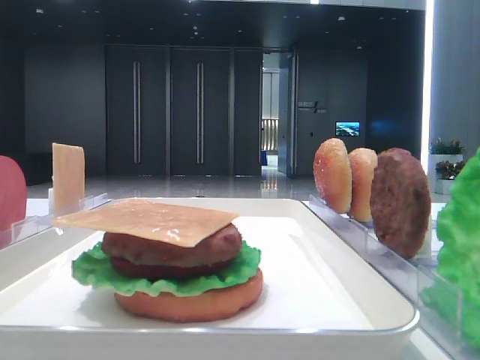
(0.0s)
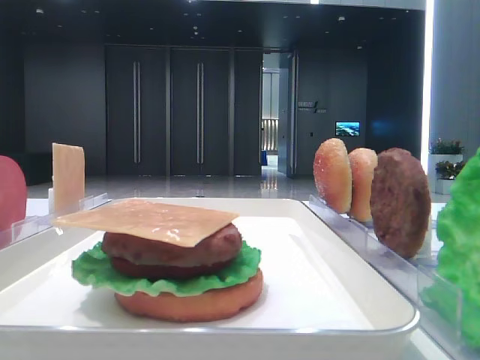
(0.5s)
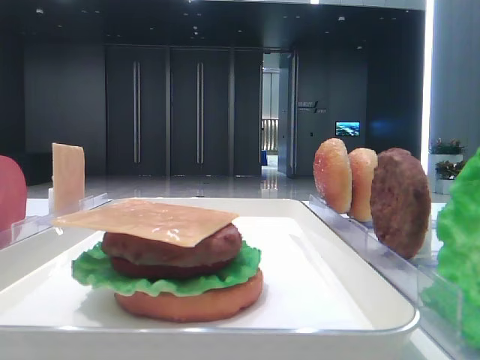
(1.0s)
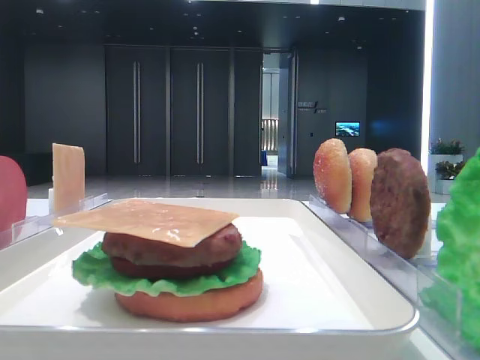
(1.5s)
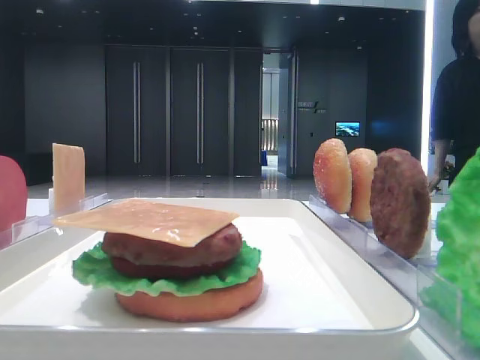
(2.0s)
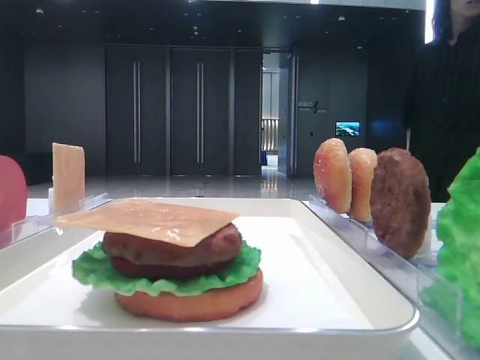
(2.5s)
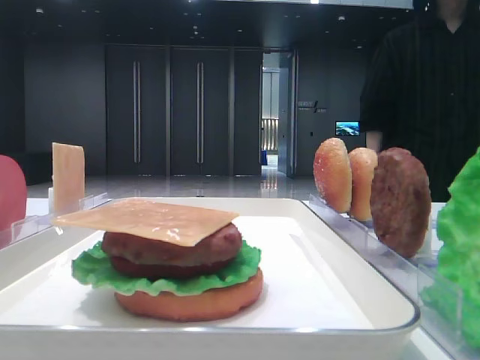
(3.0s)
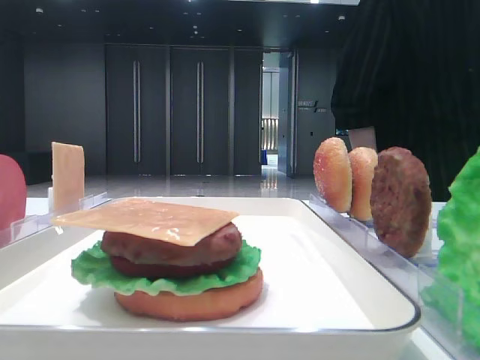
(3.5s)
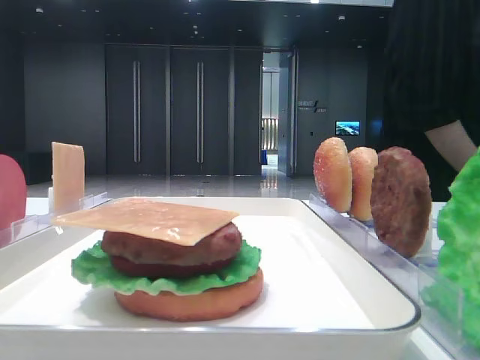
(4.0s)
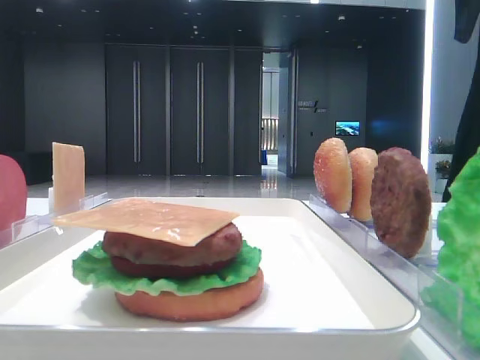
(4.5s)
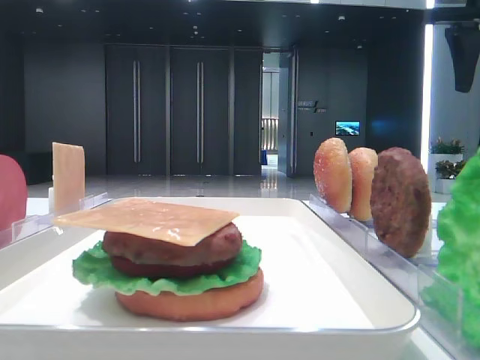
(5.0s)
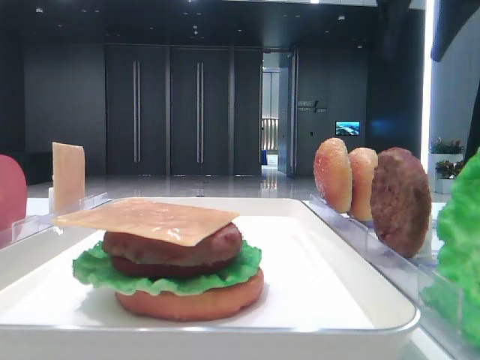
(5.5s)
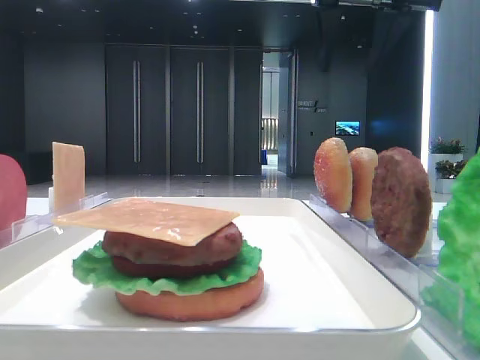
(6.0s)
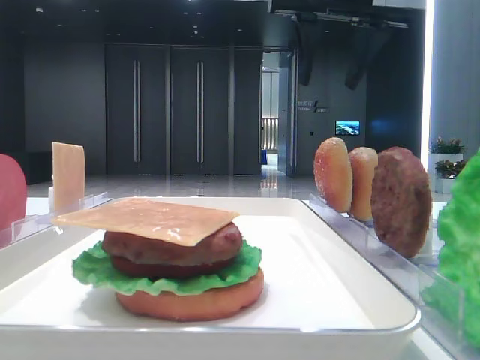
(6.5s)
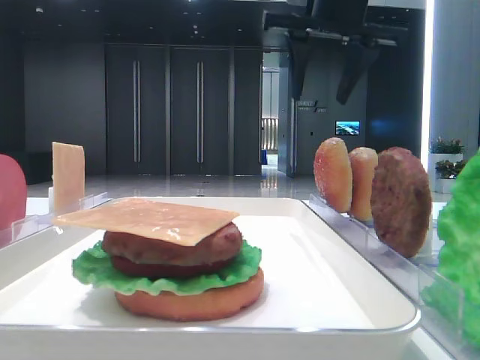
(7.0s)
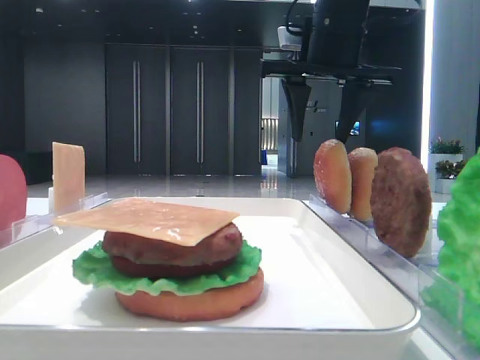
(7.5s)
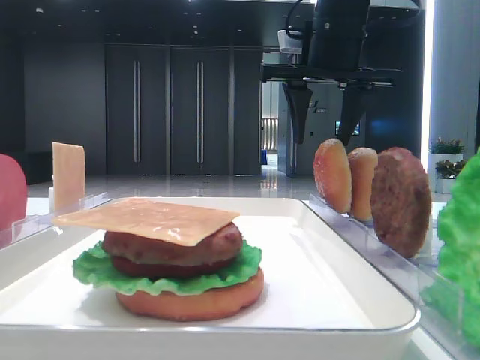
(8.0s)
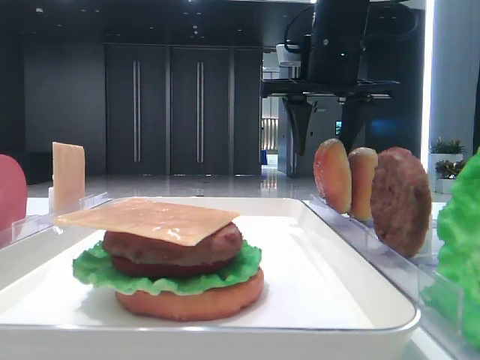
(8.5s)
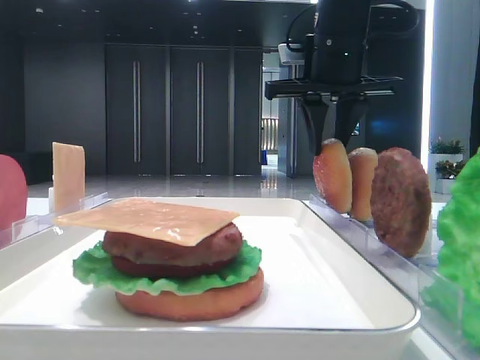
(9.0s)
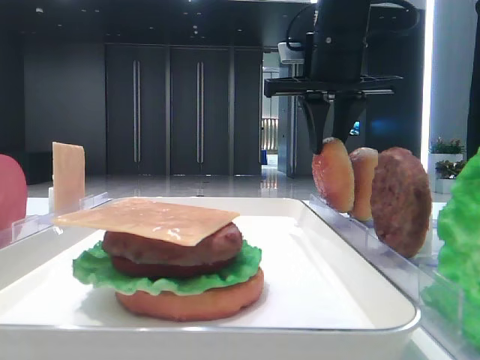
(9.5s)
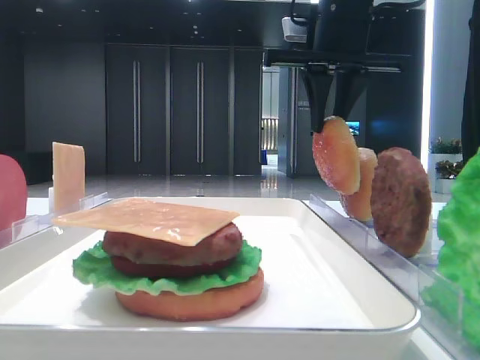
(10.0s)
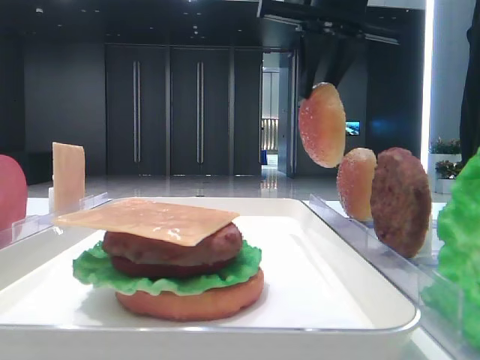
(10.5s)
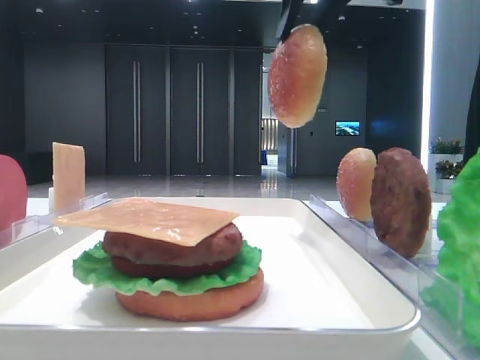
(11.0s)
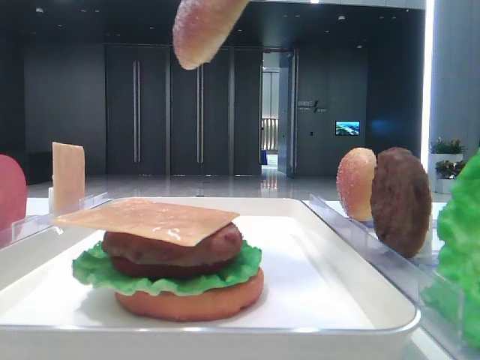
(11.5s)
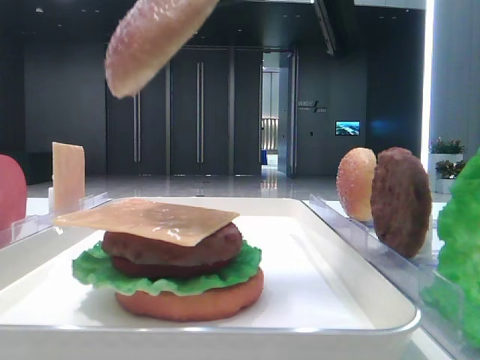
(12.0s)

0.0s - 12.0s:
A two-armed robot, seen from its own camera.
Step, 0.0s - 9.5s: Pick up the top bread slice with the right hand.
2.0s - 4.0s: The right gripper goes some 30 cm forward.
4.0s - 6.0s: The right gripper heads to the left, covering approximately 15 cm.
6.0s - 8.0s: The right gripper is displaced downward by some 10 cm.
8.0s - 10.0s: The right gripper closes up.
10.0s - 12.0s: The right gripper shifts about 15 cm backward.

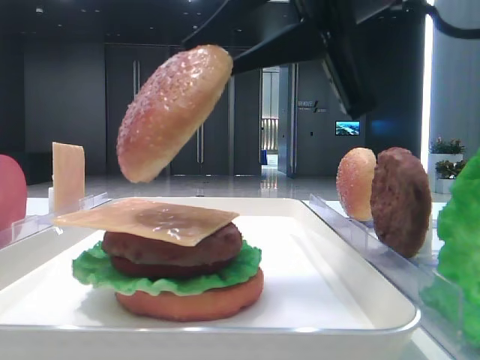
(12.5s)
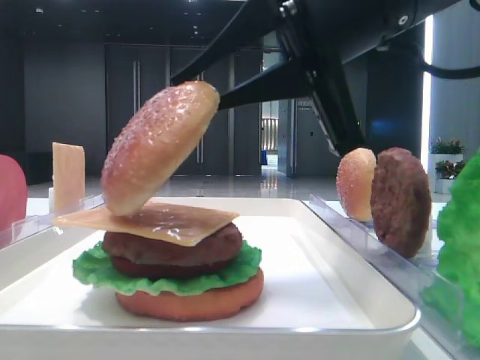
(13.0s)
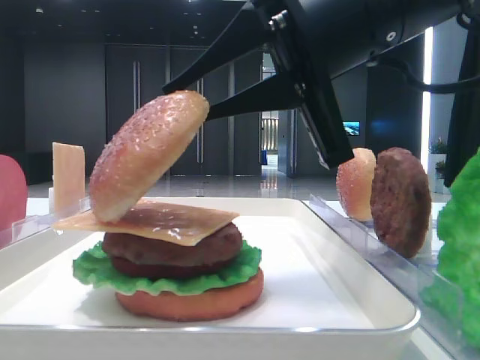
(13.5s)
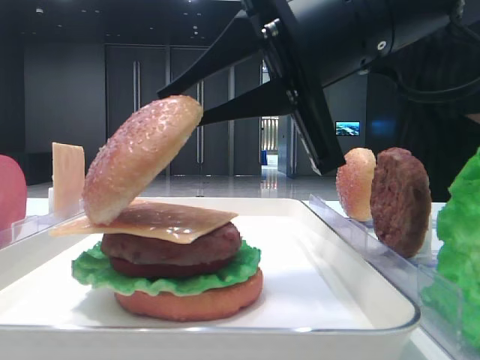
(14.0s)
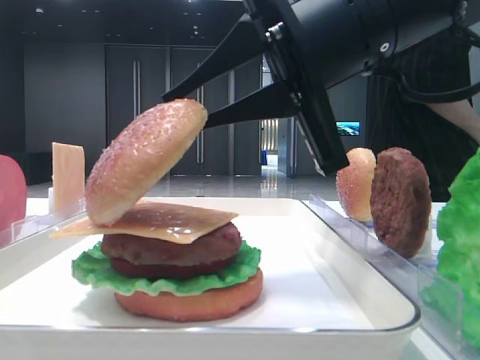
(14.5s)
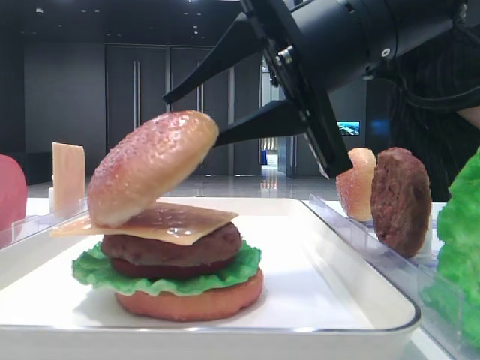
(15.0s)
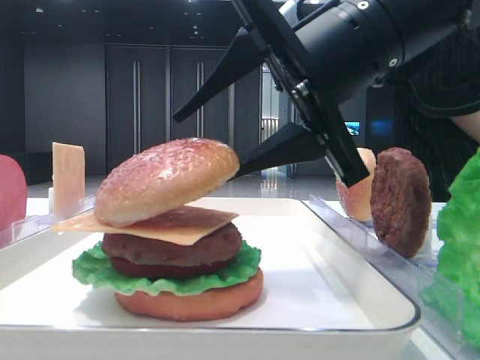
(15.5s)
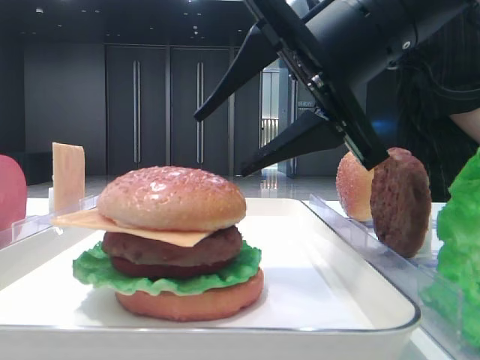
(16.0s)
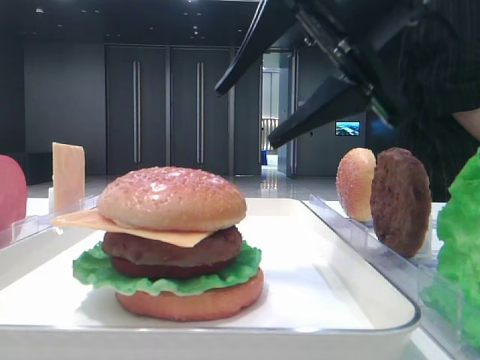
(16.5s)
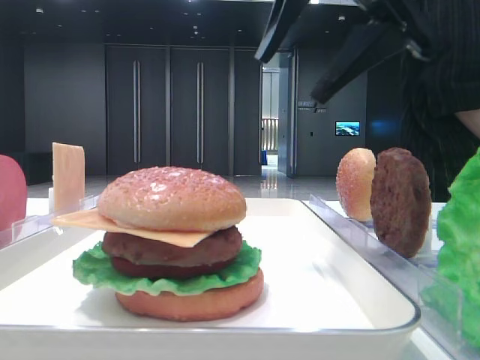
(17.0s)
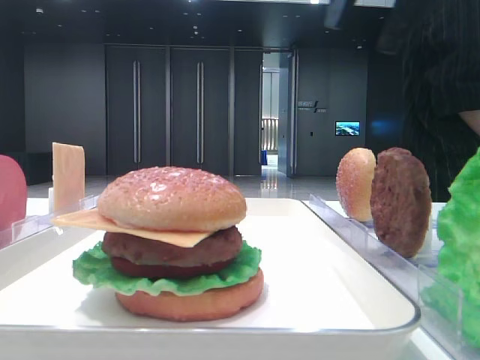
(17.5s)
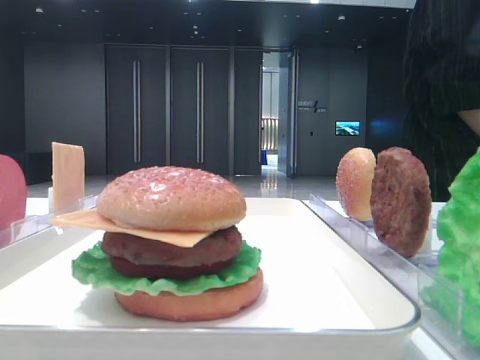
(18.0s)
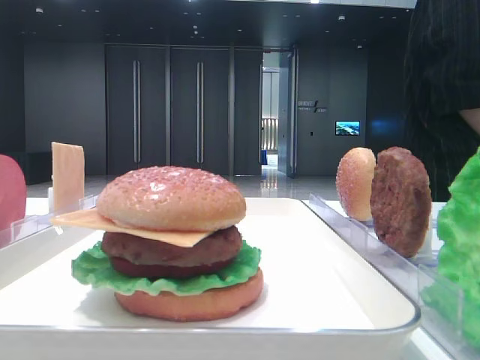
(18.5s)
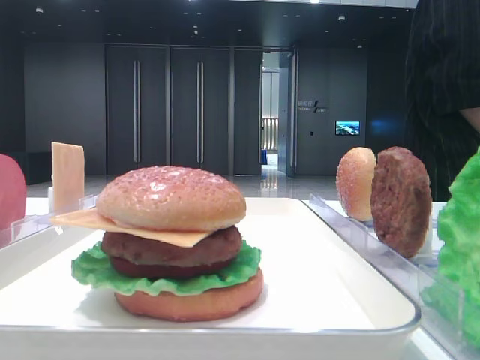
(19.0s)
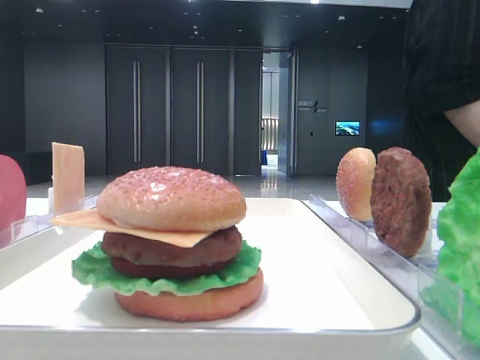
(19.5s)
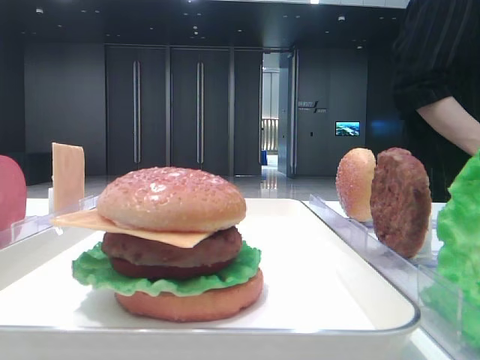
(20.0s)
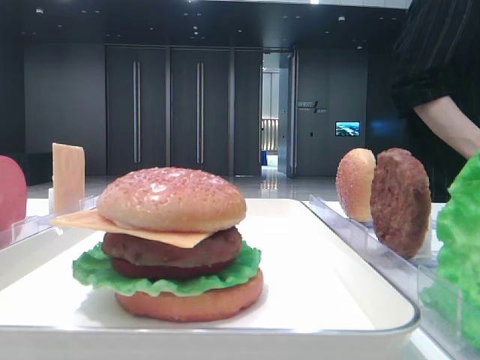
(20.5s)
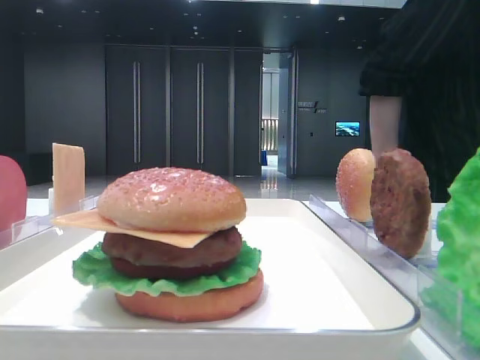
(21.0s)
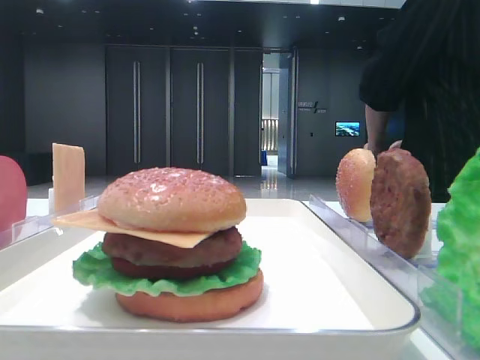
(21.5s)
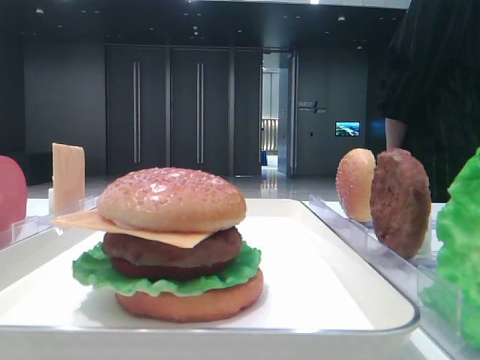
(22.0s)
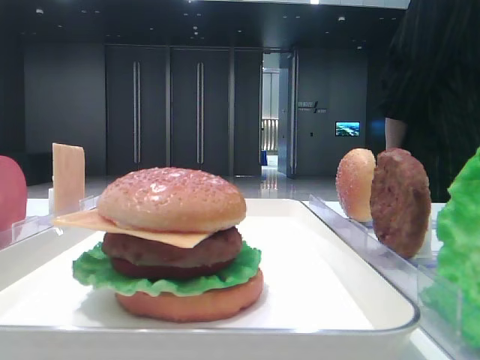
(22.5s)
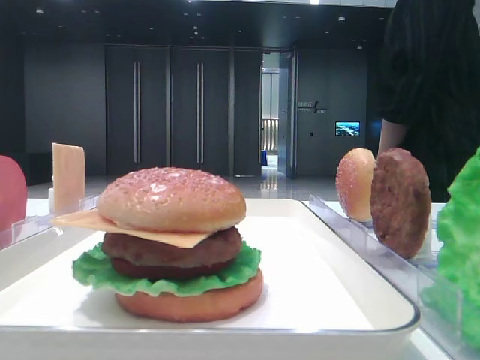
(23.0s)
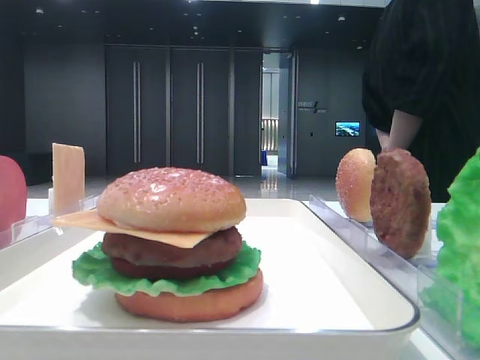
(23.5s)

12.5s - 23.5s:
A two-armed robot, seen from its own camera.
Step, 12.5s - 16.0s: Place the top bread slice on the cheese with the right hand.
14.5s - 16.0s: The right gripper opens up.
16.0s - 18.0s: The right gripper moves to the right and upward, some 20 cm.
18.0s - 20.0s: The right gripper is displaced backward by about 25 cm.
20.0s - 21.5s: The right gripper moves backward and downward, approximately 10 cm.

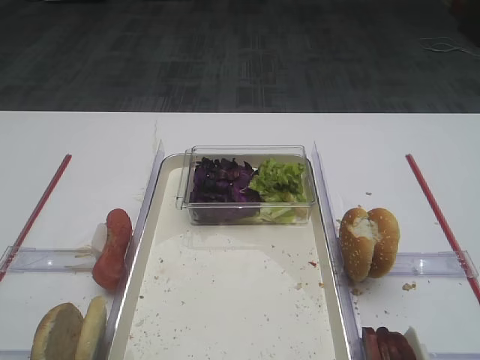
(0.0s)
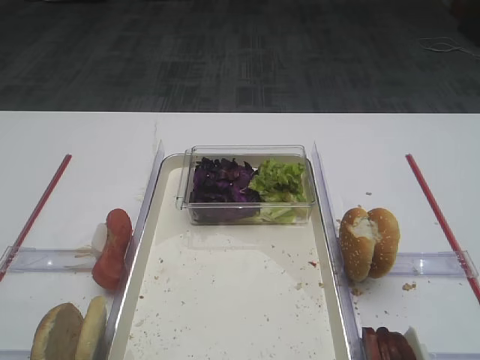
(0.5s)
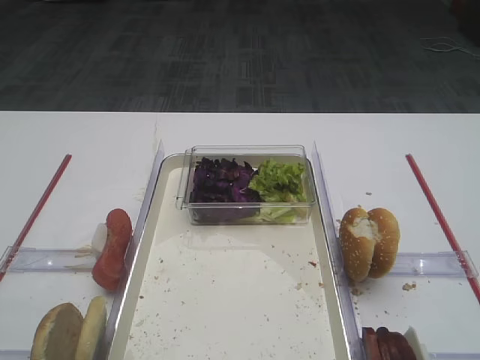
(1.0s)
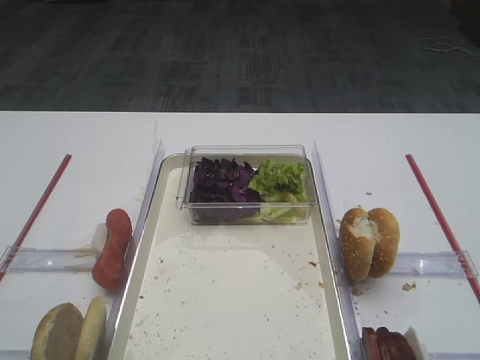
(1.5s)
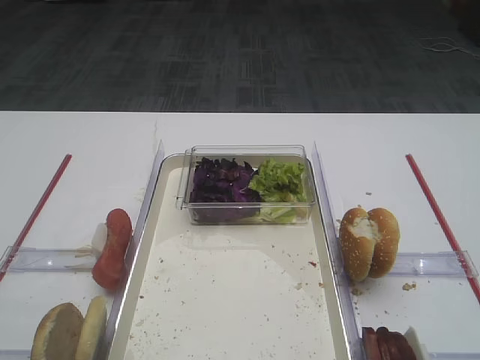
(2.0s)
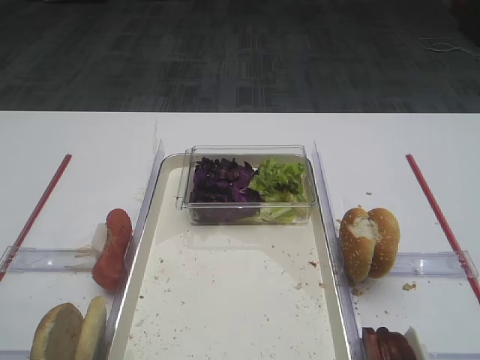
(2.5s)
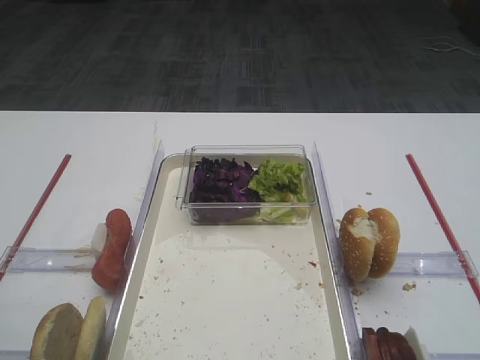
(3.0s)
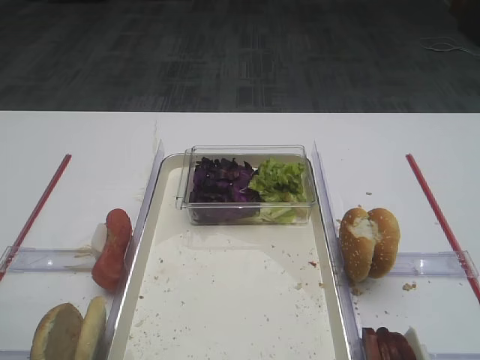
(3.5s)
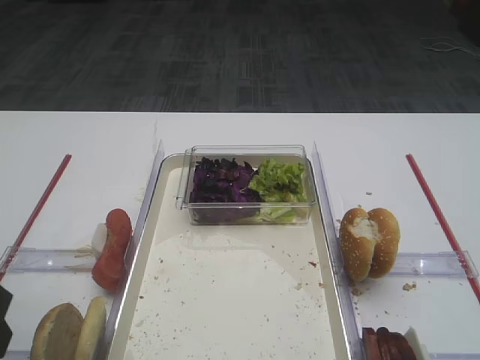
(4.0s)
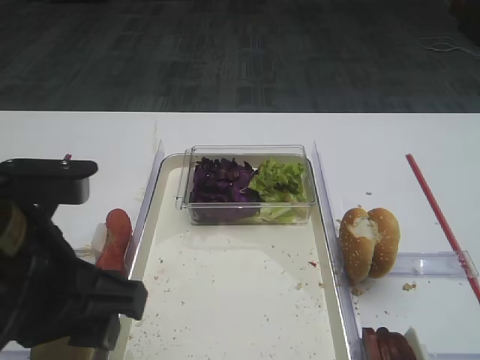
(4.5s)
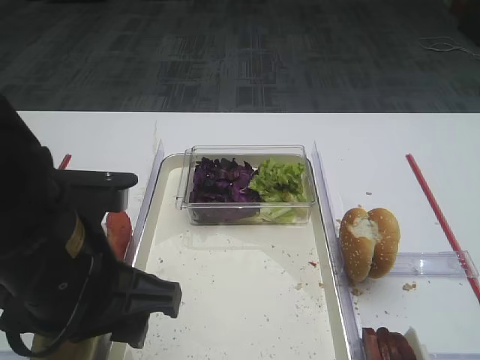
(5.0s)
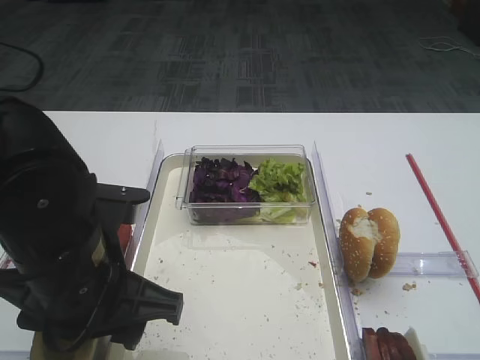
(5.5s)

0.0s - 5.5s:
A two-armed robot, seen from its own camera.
3.5s - 5.5s: The left gripper is displaced to the right by roughly 15 cm.
